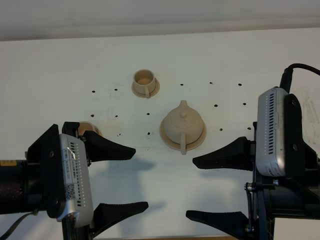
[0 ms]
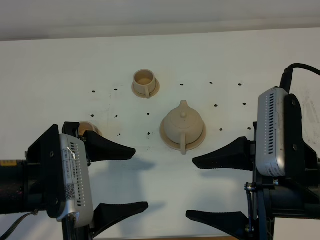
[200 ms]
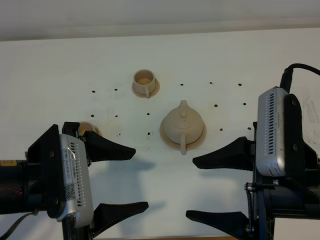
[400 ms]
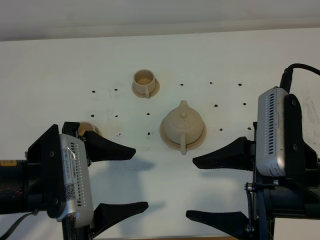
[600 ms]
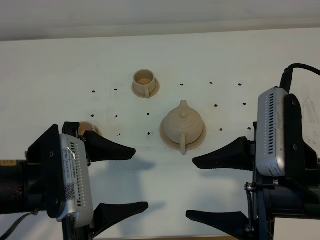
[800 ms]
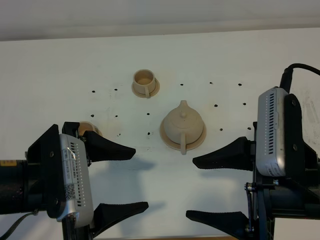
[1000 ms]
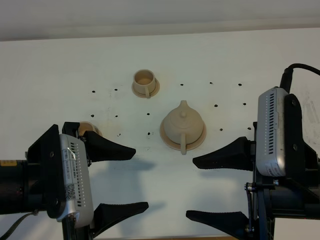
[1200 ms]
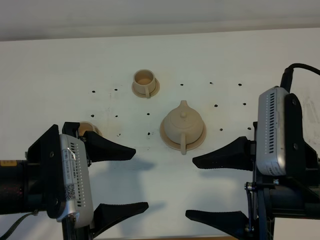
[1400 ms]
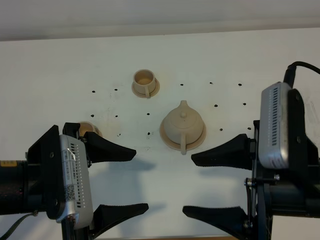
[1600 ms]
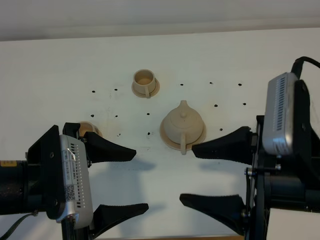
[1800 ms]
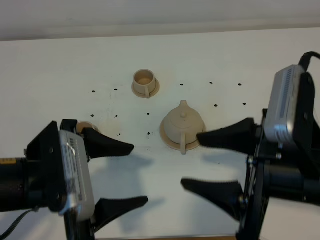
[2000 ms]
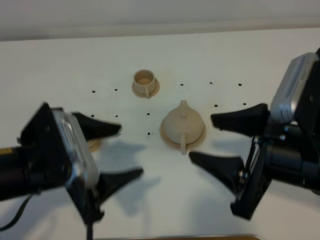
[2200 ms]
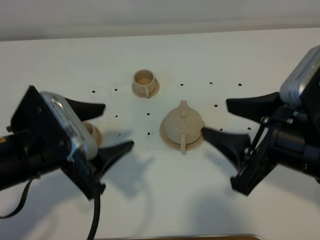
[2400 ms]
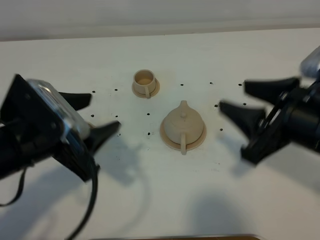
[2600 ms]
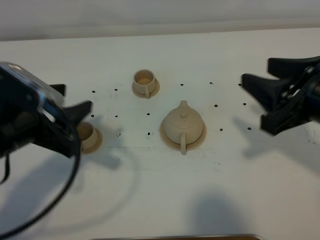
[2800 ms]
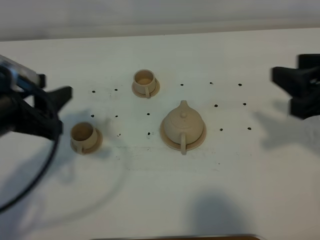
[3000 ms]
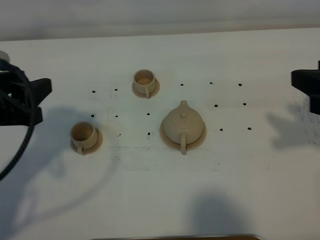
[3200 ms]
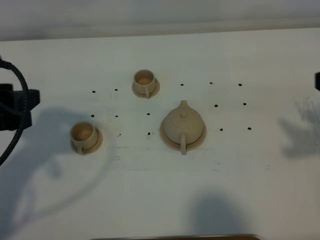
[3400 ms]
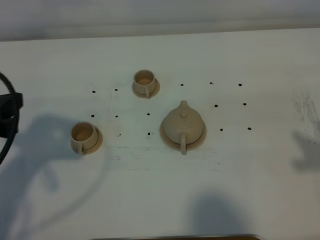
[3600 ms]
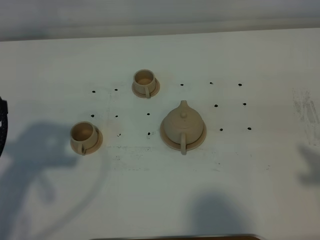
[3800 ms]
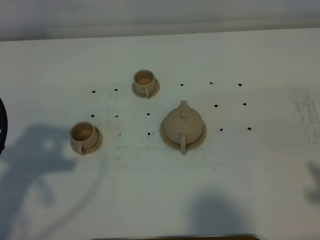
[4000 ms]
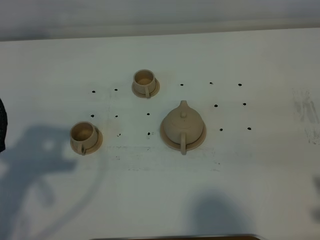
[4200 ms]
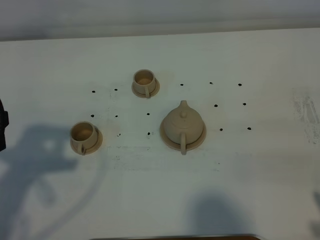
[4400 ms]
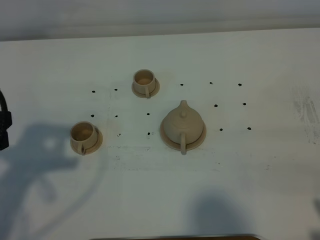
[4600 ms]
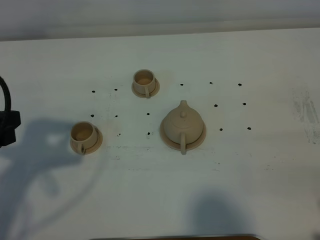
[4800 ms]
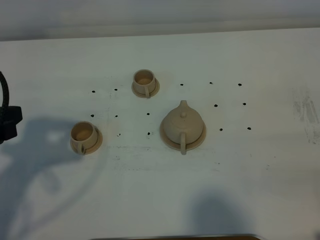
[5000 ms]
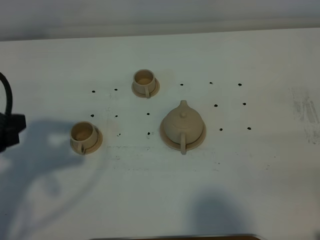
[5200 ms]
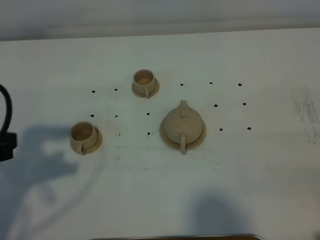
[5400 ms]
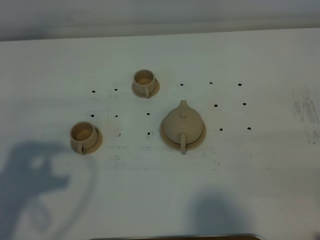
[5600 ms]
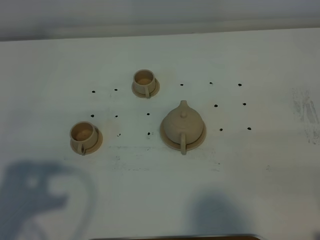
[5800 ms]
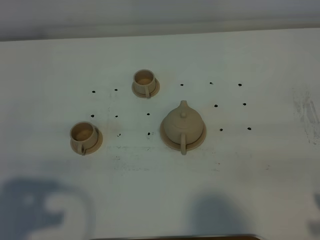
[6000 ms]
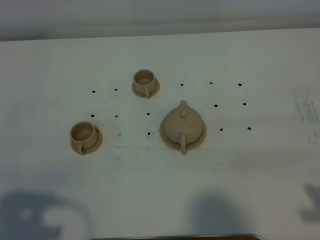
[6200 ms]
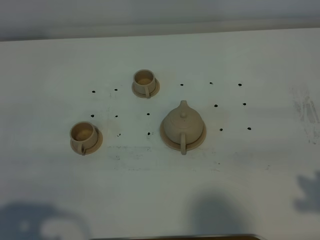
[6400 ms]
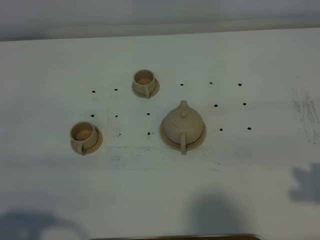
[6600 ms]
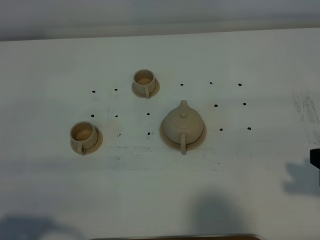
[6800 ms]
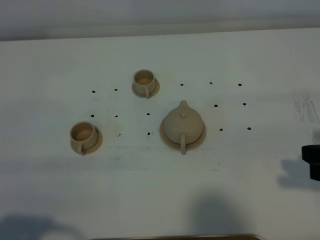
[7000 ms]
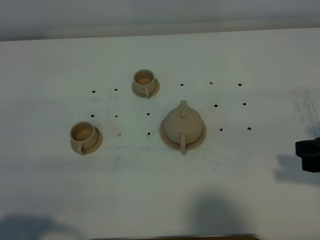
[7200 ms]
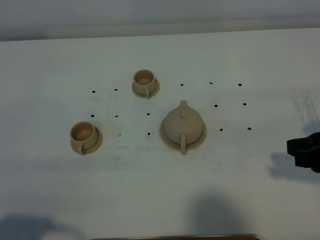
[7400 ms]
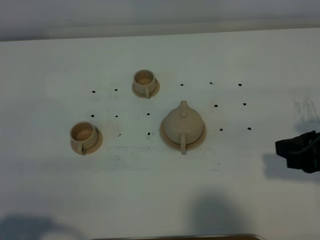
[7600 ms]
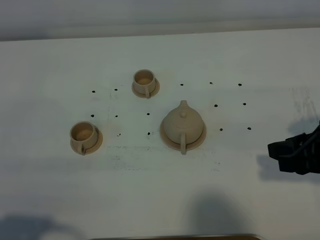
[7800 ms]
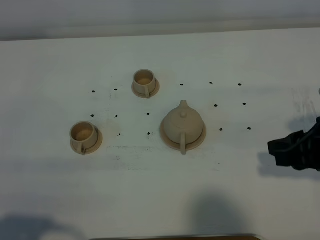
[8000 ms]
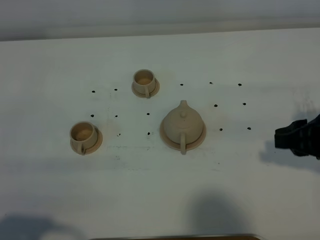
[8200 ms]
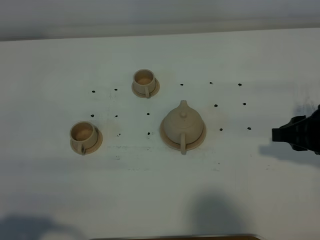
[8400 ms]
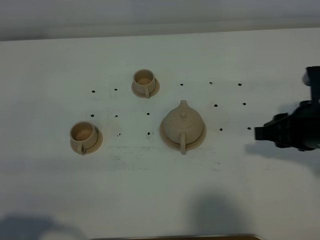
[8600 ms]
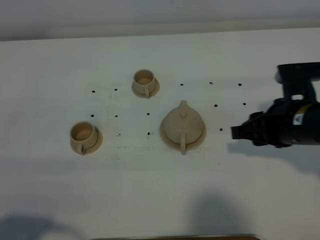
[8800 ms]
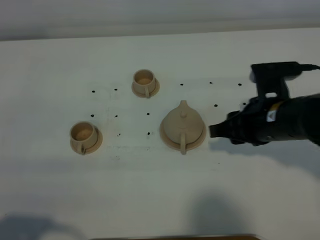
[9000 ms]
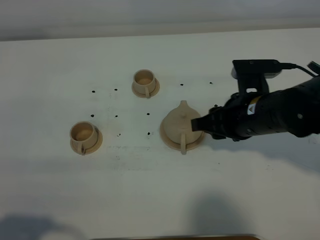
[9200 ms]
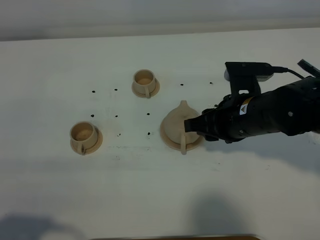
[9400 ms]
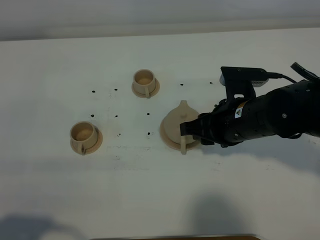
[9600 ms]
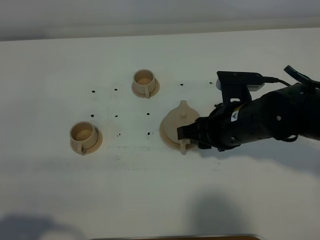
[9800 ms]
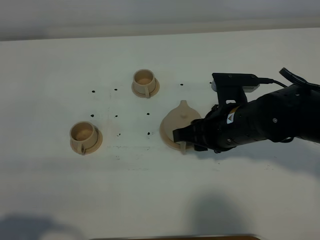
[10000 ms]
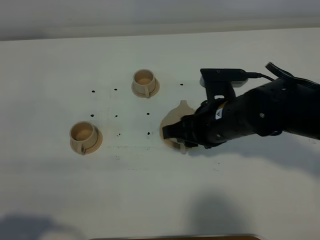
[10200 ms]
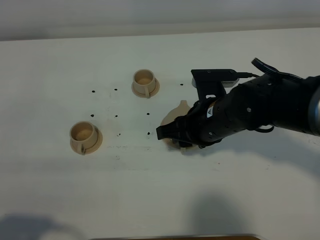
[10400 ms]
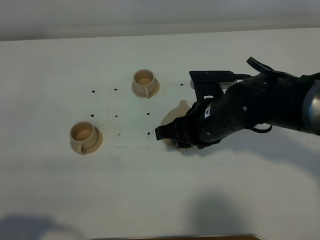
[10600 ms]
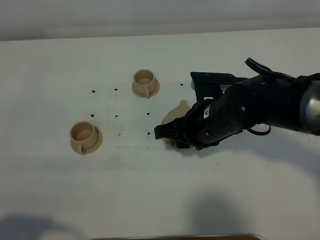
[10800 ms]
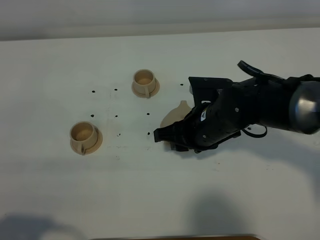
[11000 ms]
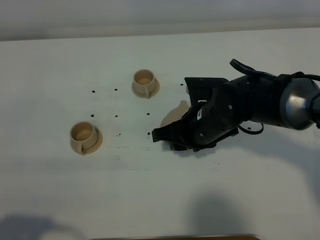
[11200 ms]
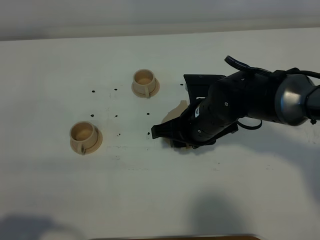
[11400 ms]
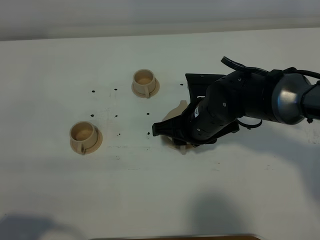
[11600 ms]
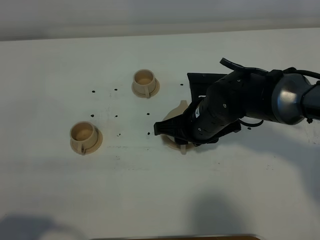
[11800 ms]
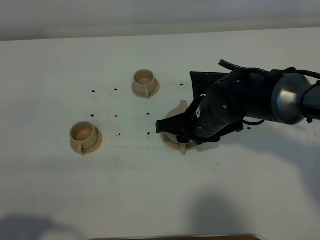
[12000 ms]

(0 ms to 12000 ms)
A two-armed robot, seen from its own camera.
Task of the whole recording: grasp the brown teapot and pour the tea into the two brown teacups one by one, put the brown teapot back in its original place.
0 ms - 1600 ms: The grippers move only a little.
1600 ms - 3000 ms: The right gripper travels to the right and forward by roughly 15 cm. Meanwhile the left gripper shifts about 10 cm to the left and forward, and closes up.
3000 ms - 4400 ms: The right gripper heads backward, covering approximately 15 cm. Meanwhile the left gripper moves roughly 5 cm.
4400 ms - 6000 ms: The left gripper heads backward, covering approximately 10 cm.
6000 ms - 7600 ms: The right gripper is displaced forward by approximately 15 cm, while the left gripper moves about 5 cm.
7600 ms - 9000 ms: The right gripper is displaced forward and to the left by about 10 cm.
9000 ms - 10400 ms: The right gripper shifts about 10 cm to the left.
10400 ms - 12000 ms: The grippers stay close to where they were, moving slightly.

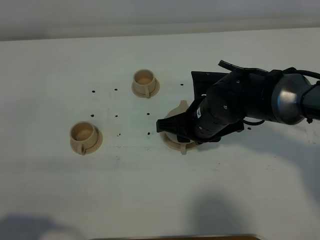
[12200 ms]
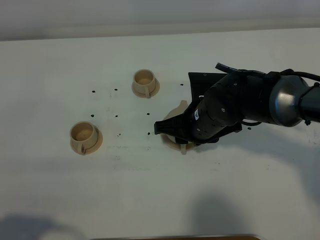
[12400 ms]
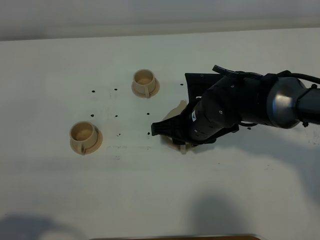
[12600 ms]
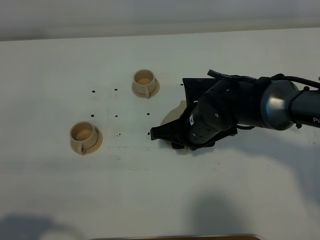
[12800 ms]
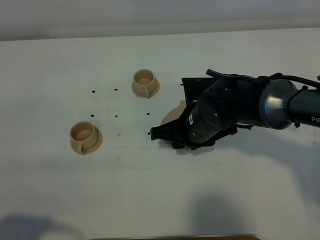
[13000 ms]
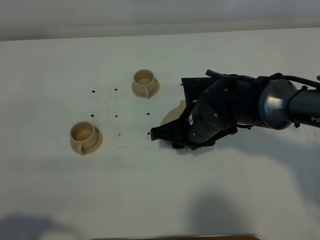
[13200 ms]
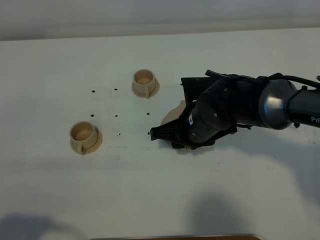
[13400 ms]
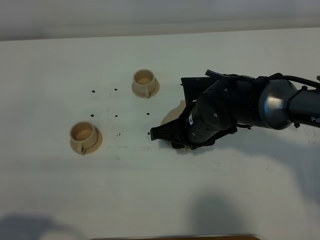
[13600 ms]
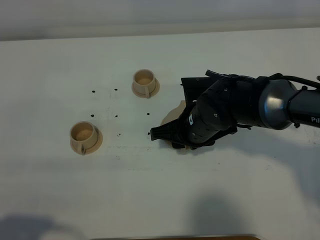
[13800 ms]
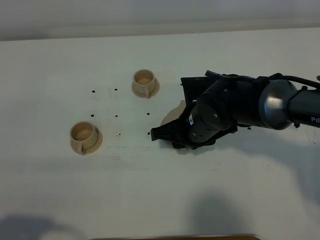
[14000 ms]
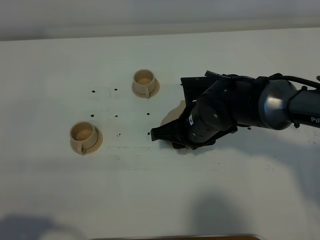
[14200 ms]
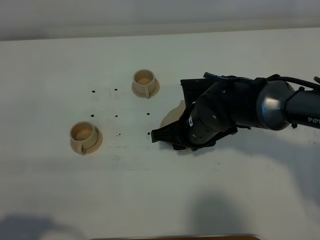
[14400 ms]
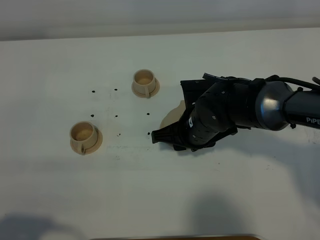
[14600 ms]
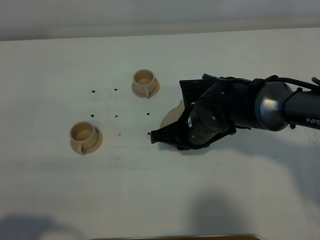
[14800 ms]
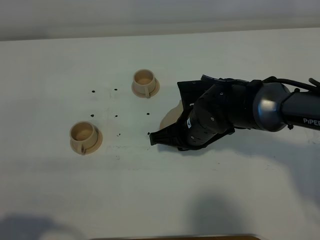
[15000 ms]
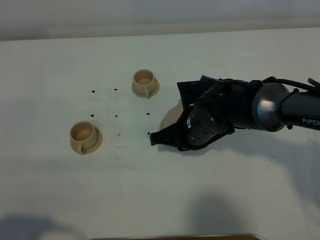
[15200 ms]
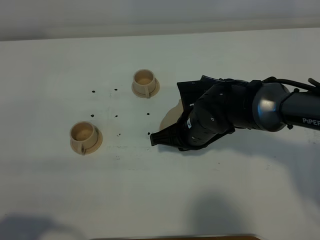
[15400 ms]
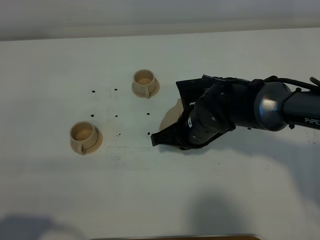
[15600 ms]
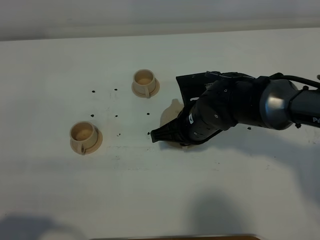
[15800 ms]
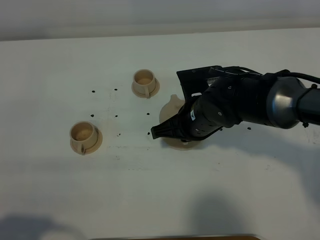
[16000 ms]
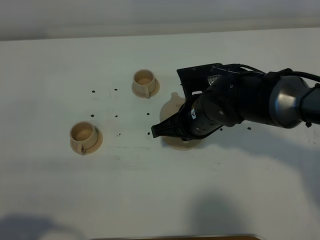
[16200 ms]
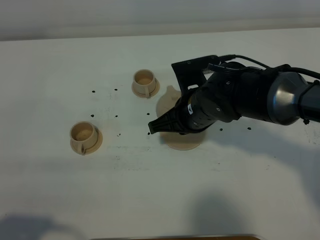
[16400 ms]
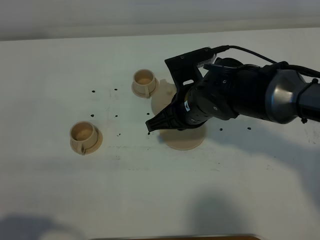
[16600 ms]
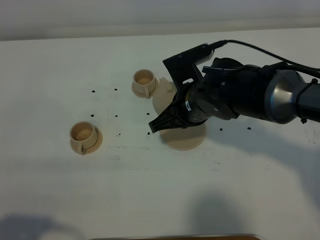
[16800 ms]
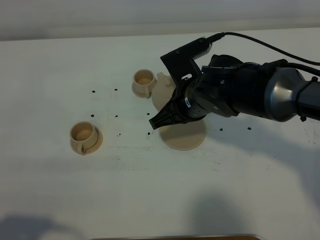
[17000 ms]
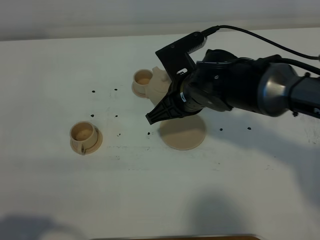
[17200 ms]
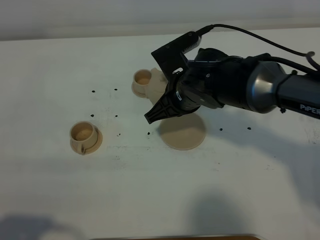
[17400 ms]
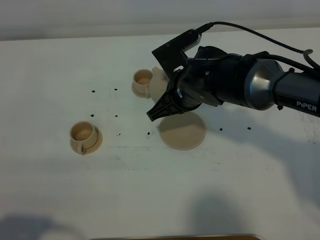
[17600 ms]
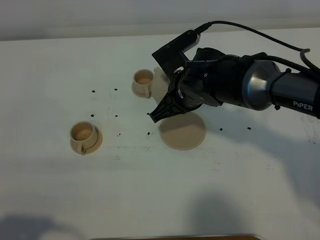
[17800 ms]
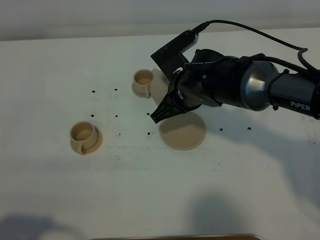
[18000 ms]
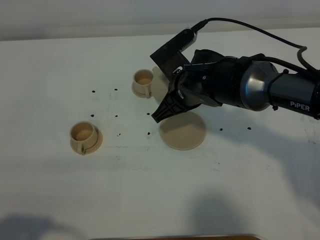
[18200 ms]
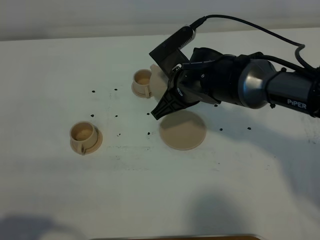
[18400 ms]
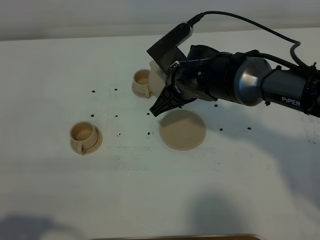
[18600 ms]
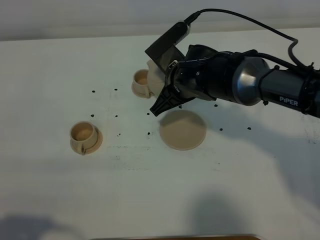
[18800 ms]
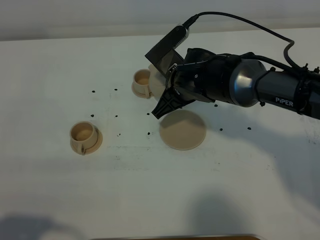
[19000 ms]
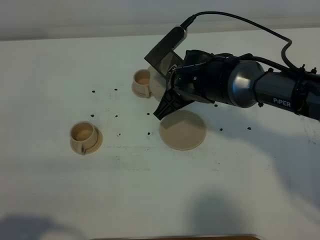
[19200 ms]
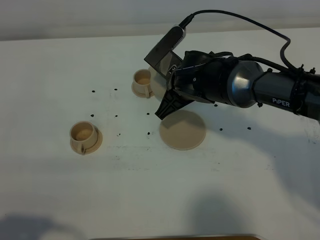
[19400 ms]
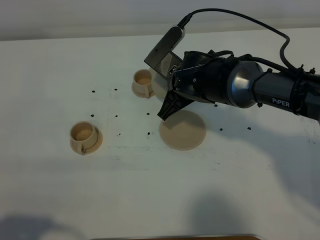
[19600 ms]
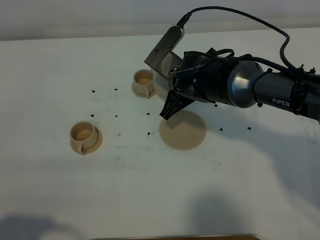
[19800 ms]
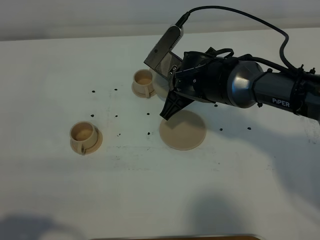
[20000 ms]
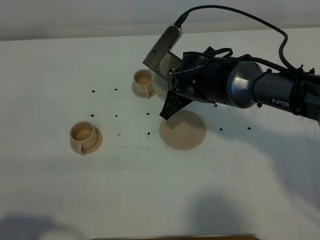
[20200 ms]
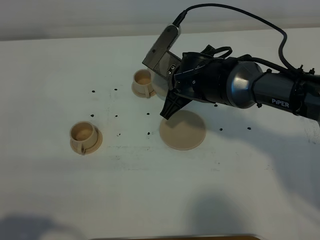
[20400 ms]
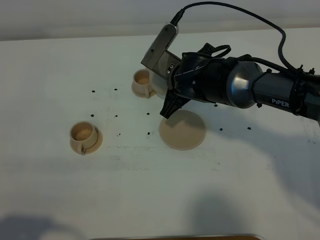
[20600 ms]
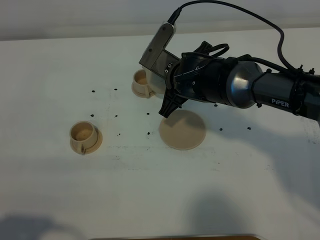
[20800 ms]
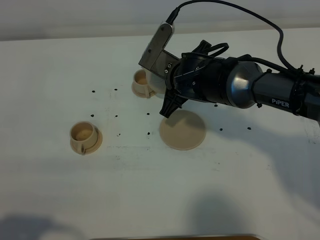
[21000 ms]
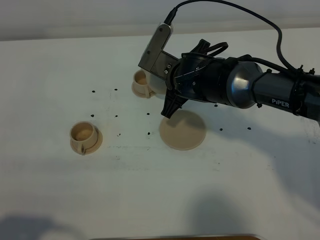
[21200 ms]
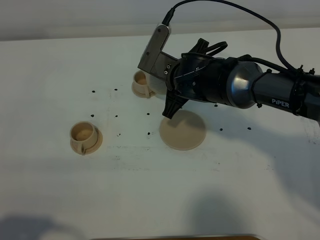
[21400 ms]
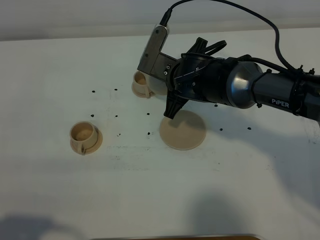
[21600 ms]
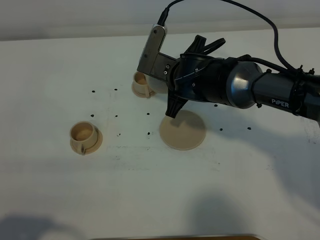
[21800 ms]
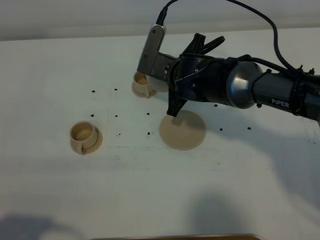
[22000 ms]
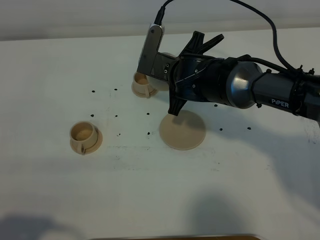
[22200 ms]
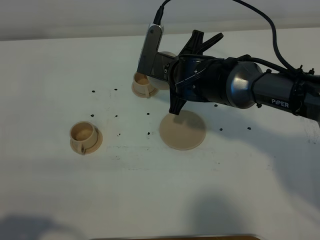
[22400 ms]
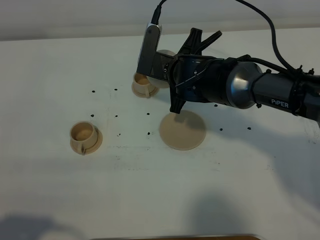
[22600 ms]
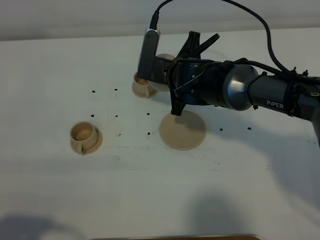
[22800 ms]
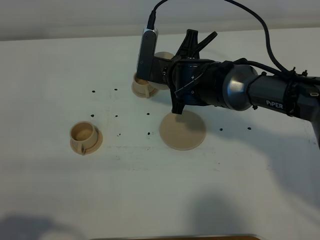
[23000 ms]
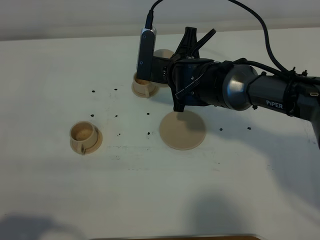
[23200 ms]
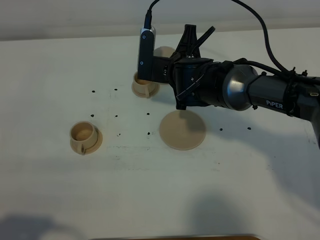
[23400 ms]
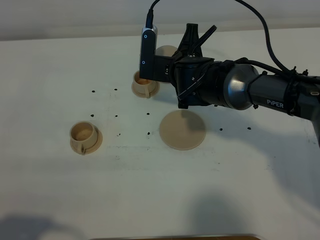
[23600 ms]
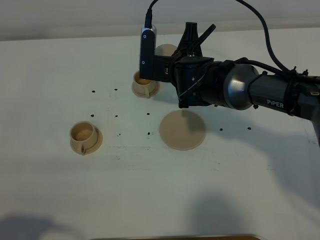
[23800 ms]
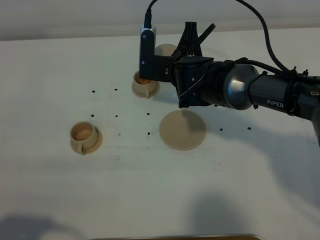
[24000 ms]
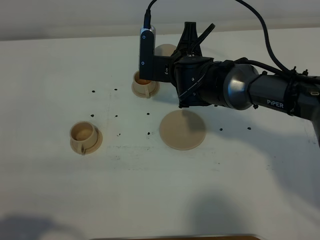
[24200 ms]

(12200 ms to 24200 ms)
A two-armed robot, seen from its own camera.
Task of the whole recording: grasp the brown teapot and pour the tea into the two brown teacups one by one, put the brown teapot back in its original place.
Step, 12200 ms - 15800 ms: Pick up the teapot with the right gripper.
12200 ms - 13800 ms: The grippers stay close to where they were, moving slightly.
13800 ms - 15200 ms: The right gripper closes.
15200 ms - 16600 ms: The right gripper is displaced upward by approximately 5 cm.
16600 ms - 18200 ms: There are only small adjustments of the grippers.
18200 ms - 19800 ms: The grippers make only small movements.
19800 ms - 21200 ms: There are only small adjustments of the grippers.
21200 ms - 22600 ms: The grippers stay close to where they were, moving slightly.
22600 ms - 24200 ms: The grippers make only small movements.
